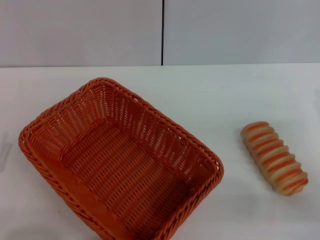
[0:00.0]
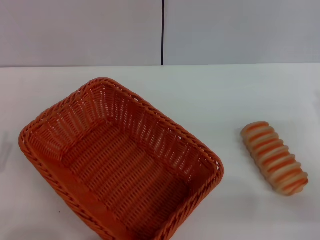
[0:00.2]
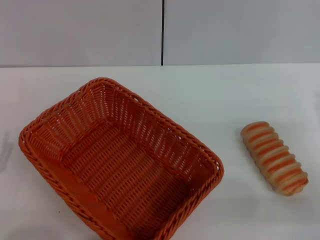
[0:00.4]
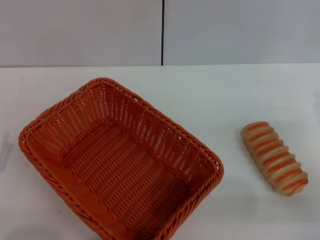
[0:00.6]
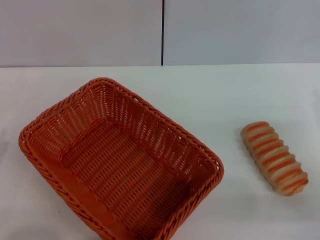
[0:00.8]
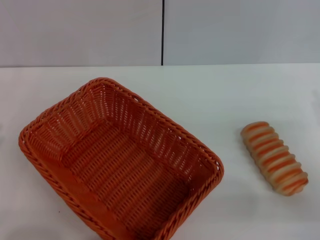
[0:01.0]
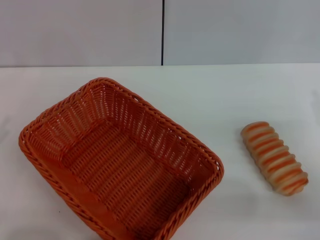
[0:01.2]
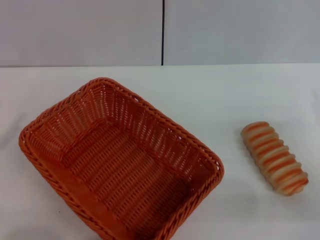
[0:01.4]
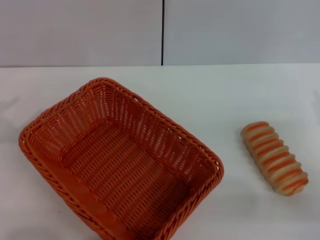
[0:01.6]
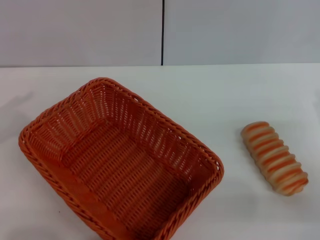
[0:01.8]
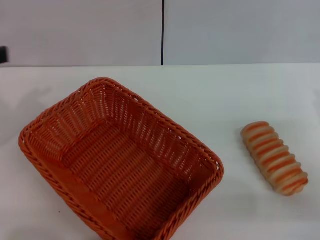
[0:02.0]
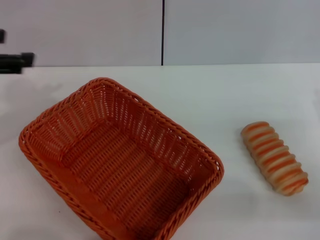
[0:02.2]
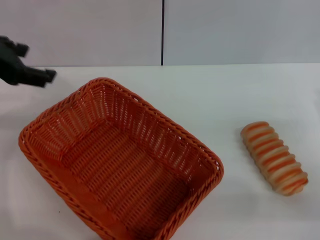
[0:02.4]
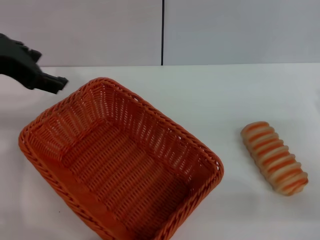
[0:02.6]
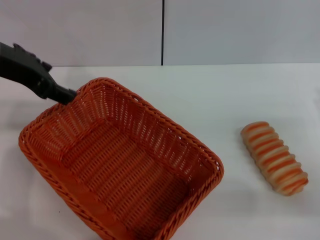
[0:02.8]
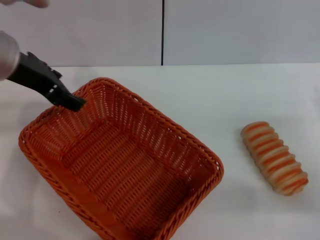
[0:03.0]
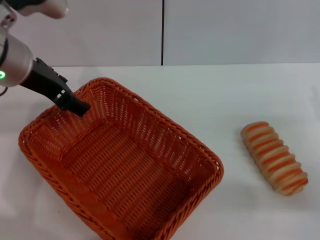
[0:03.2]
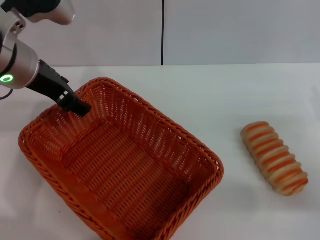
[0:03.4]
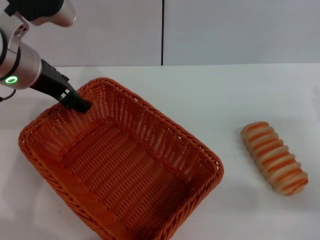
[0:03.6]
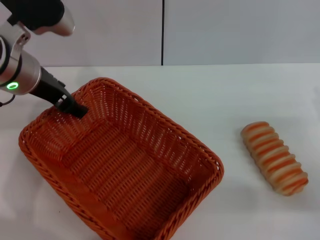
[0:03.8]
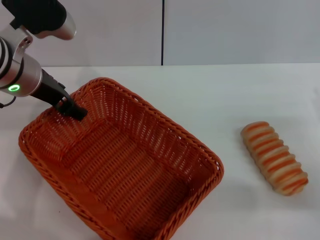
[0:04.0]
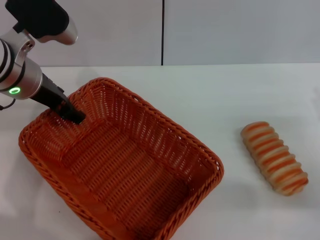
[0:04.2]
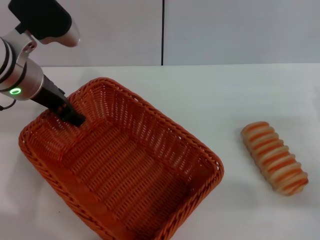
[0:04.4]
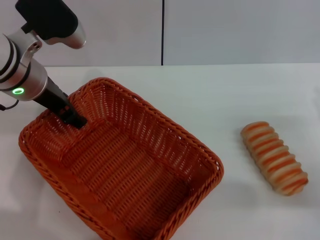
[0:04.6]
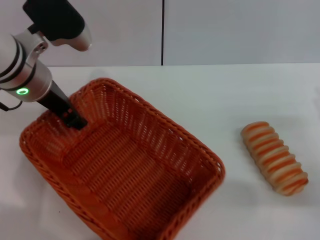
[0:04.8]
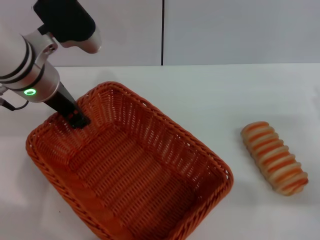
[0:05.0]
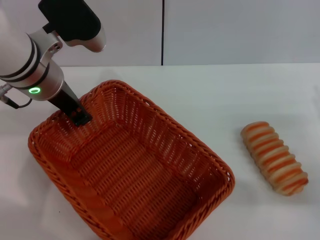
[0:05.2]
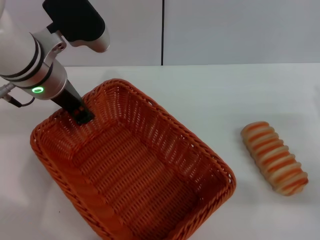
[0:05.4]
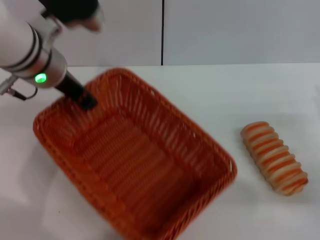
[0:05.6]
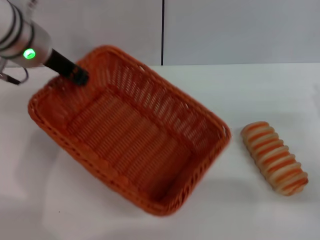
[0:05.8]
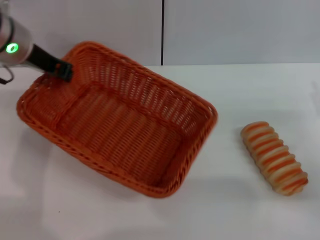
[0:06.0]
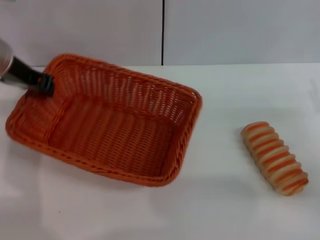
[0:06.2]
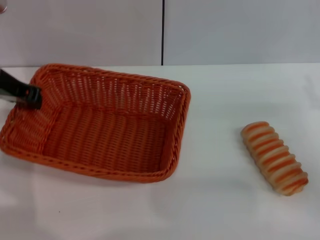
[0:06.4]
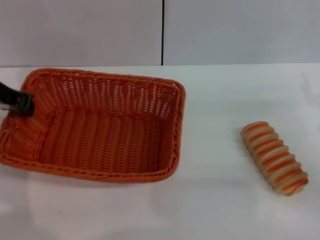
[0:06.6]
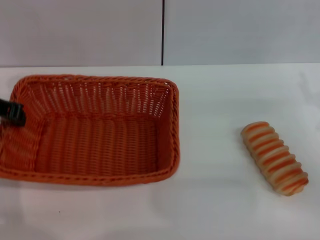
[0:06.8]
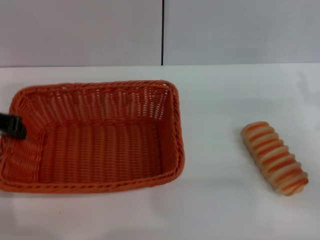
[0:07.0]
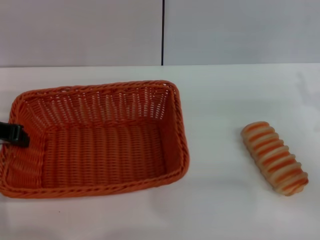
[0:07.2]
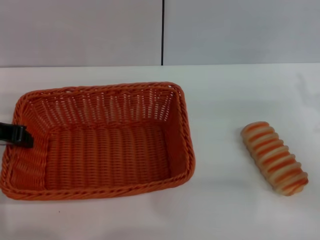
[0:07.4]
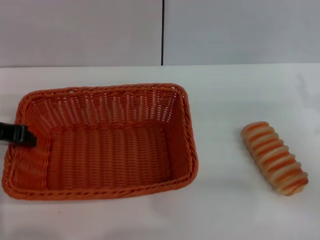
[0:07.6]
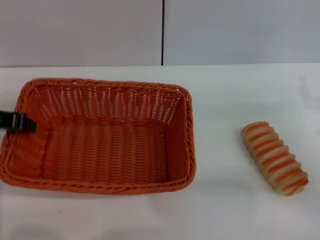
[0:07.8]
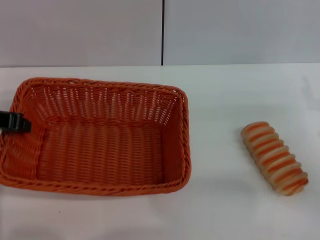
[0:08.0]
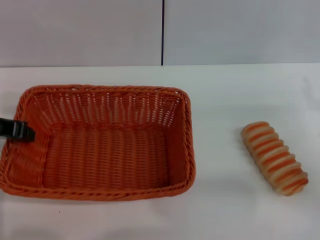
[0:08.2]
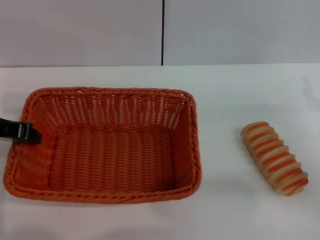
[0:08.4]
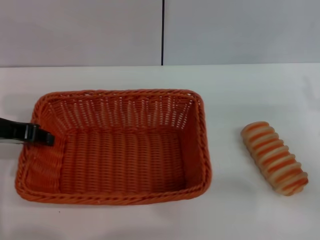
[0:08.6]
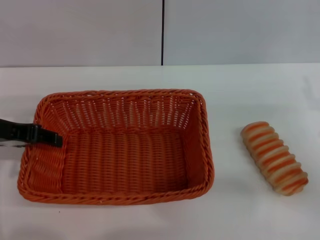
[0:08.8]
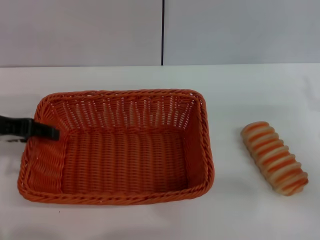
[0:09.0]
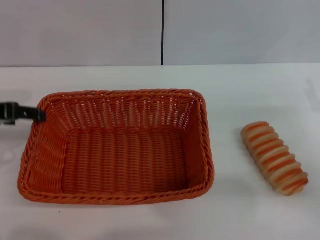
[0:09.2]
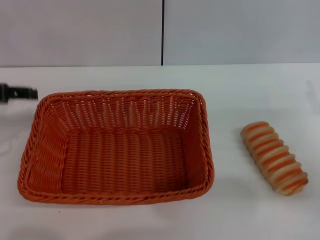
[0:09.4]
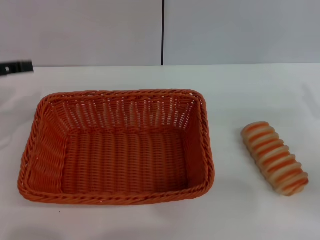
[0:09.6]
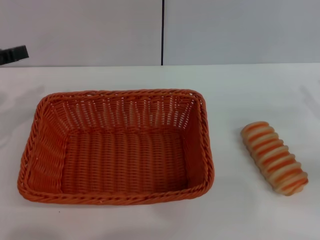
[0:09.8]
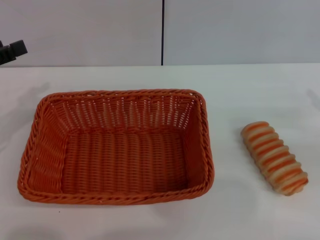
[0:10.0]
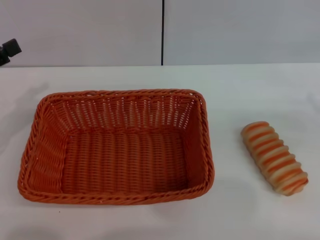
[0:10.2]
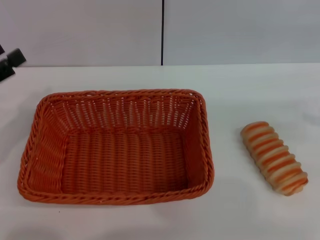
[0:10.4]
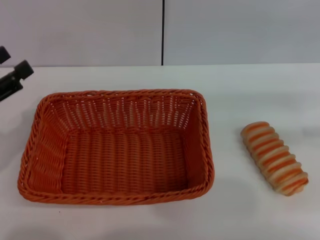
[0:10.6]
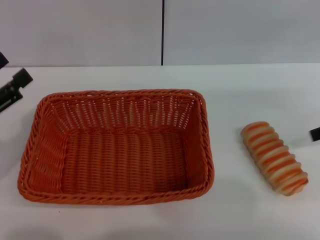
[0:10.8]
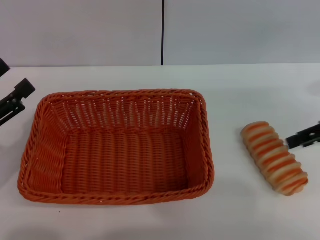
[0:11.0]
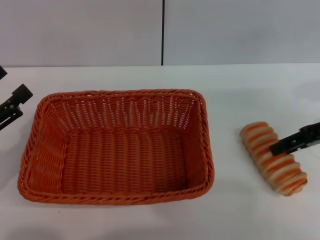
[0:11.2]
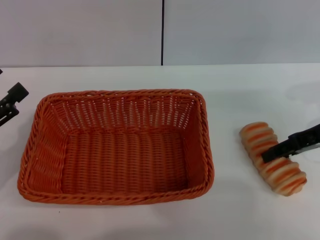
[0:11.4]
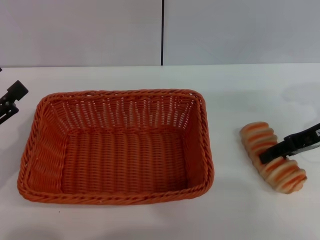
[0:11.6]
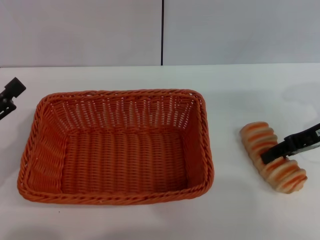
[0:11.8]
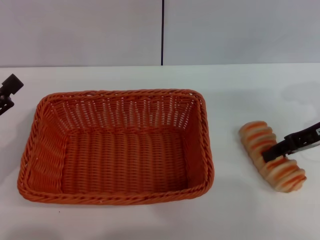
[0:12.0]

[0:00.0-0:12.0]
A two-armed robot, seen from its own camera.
Step, 0:00.0 to 0:06.0: Pick up the light basket with the left gripper.
Step, 0:06.2 to 0:09.0: Place the light basket in the center of view with the left gripper.
0:01.6 to 0:03.0: The left gripper moves to the right and forward, approximately 25 cm.
0:03.0 to 0:04.4: The left gripper is displaced downward by about 5 cm.
0:04.4 to 0:06.0: The left gripper closes up.
0:06.0 to 0:07.6: The left gripper is displaced backward and to the left by roughly 10 cm.
0:07.6 to 0:09.0: The left gripper opens up.
0:09.0 to 0:10.4: The left gripper heads to the left, covering about 5 cm, and opens up.
0:10.4 to 0:12.0: The left gripper changes place by some 5 cm. The right gripper travels to the left, downward and forward by about 15 cm, and closes up.

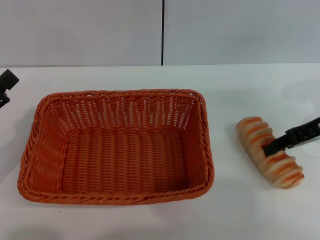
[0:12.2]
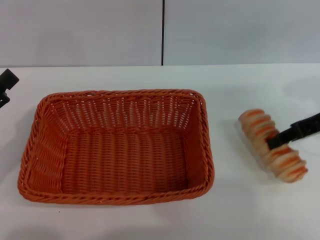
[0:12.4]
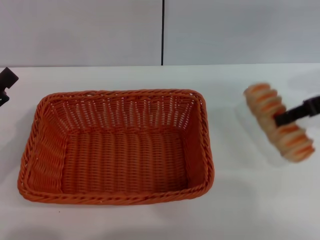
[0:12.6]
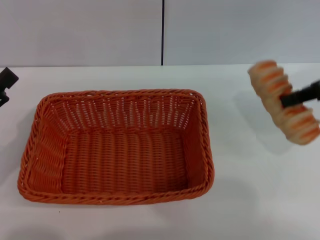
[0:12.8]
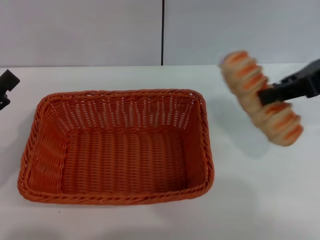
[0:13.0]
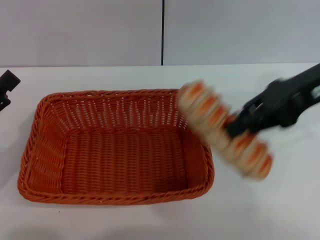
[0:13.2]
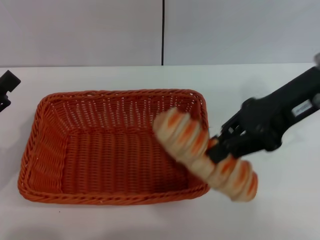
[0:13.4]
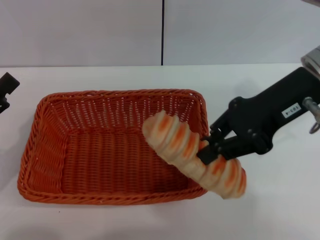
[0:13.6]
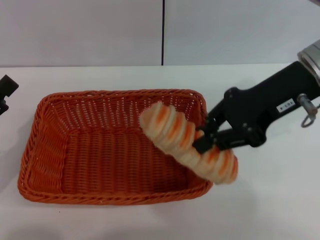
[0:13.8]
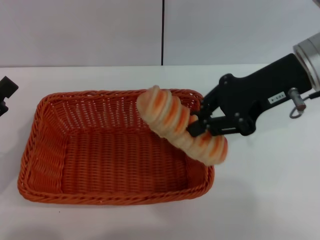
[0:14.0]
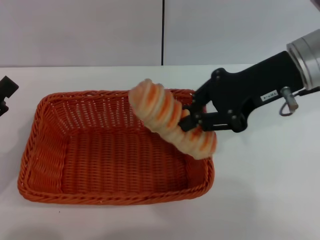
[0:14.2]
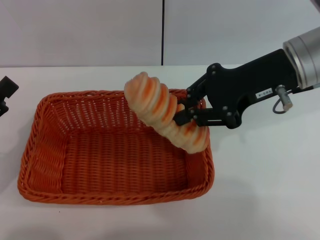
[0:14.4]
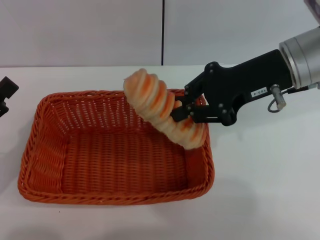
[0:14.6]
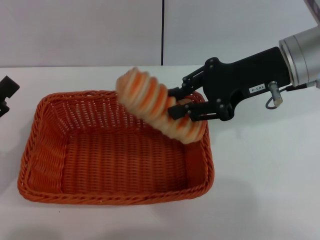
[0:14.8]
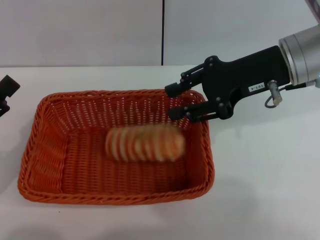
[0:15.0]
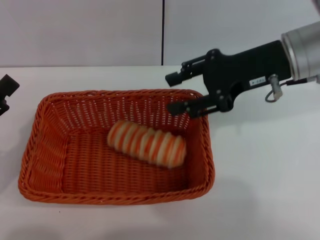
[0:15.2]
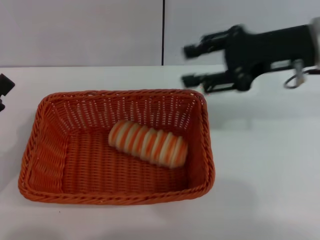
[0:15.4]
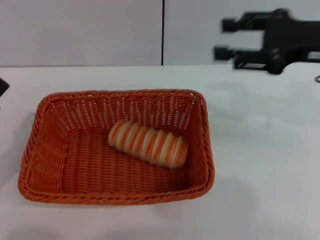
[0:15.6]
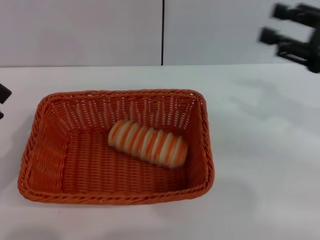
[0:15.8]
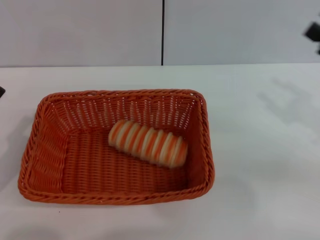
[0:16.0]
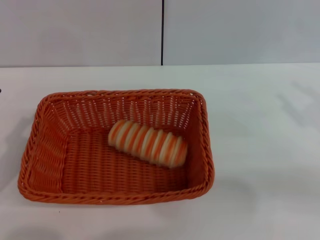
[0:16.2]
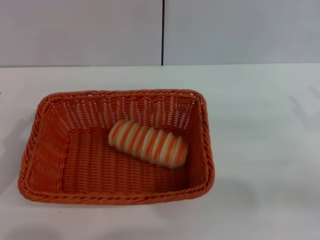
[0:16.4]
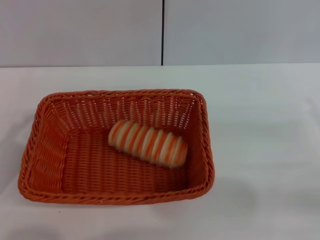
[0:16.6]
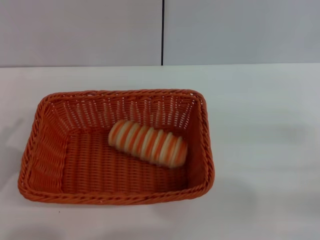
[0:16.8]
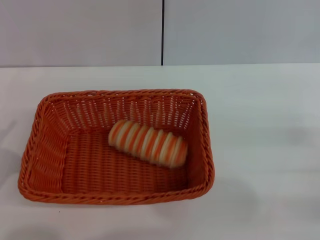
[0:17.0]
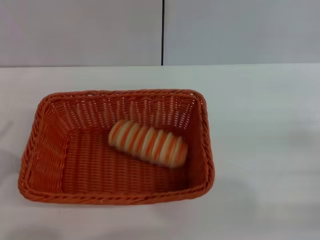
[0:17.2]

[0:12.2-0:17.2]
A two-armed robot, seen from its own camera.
Step, 0:12.8 to 0:14.8: Place the long bread into the light basket with the right gripper.
0:12.2 to 0:13.8: The right gripper shifts about 15 cm to the left and upward, and closes up.
0:13.8 to 0:15.6: The right gripper goes about 5 cm to the right, and opens.
0:15.6 to 0:17.2: The right gripper travels downward, backward and to the right by roughly 25 cm, and closes its fingers.

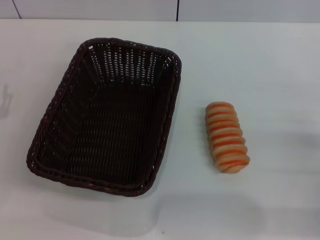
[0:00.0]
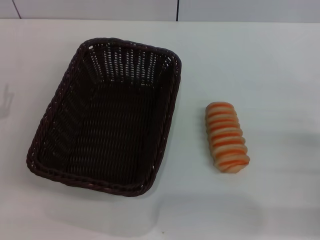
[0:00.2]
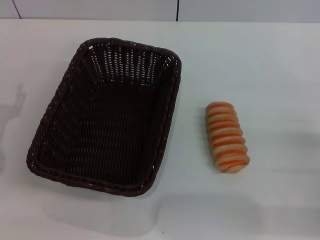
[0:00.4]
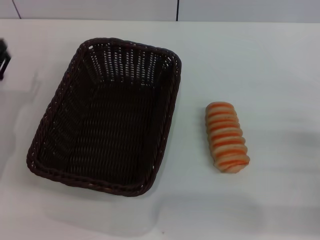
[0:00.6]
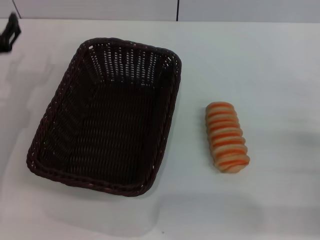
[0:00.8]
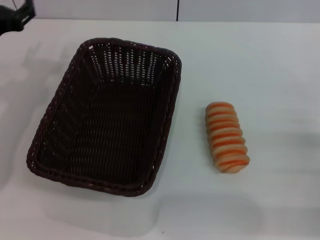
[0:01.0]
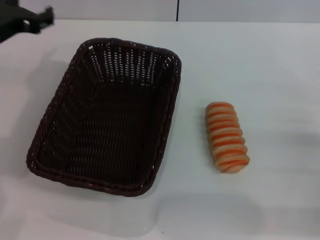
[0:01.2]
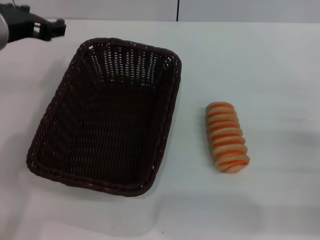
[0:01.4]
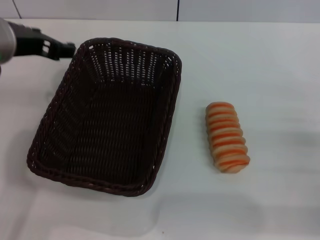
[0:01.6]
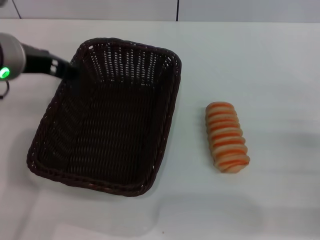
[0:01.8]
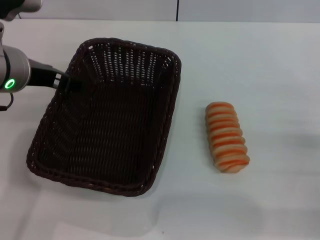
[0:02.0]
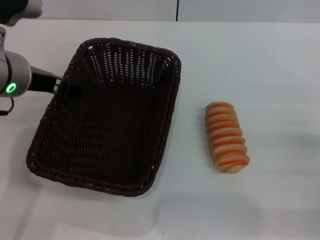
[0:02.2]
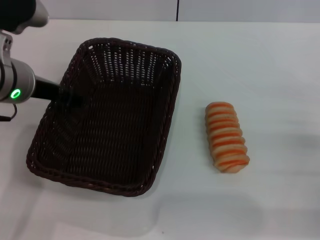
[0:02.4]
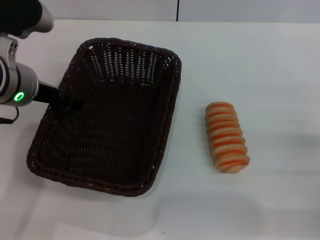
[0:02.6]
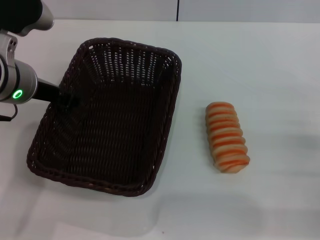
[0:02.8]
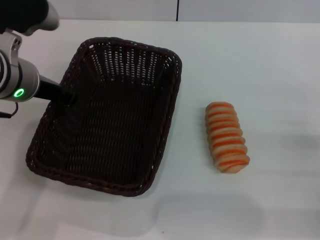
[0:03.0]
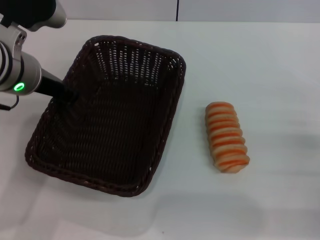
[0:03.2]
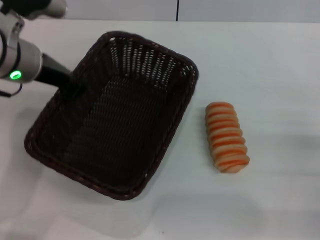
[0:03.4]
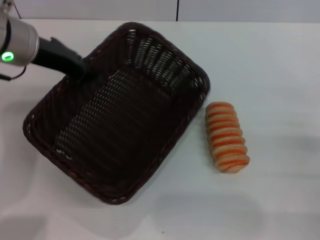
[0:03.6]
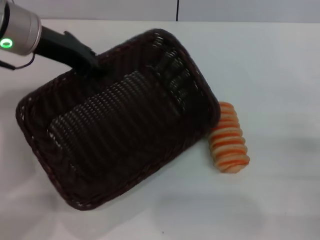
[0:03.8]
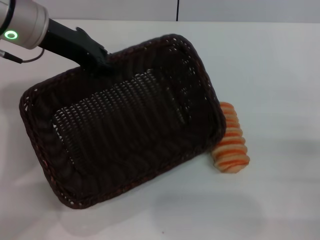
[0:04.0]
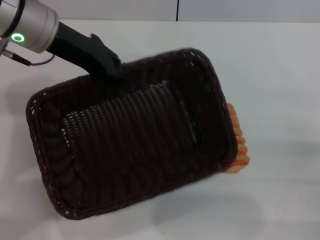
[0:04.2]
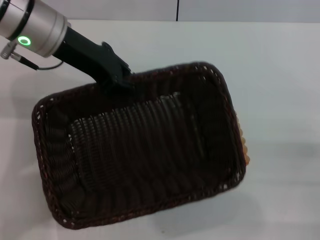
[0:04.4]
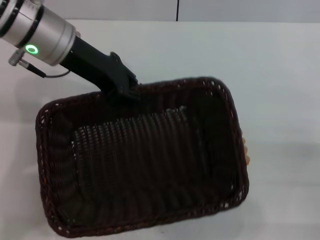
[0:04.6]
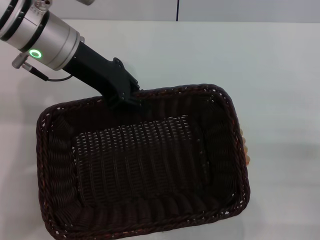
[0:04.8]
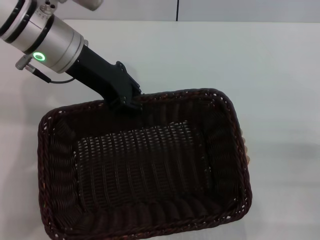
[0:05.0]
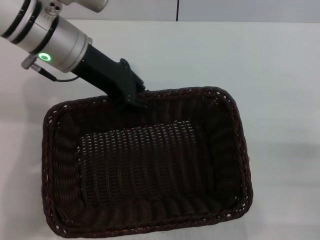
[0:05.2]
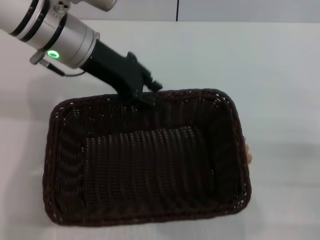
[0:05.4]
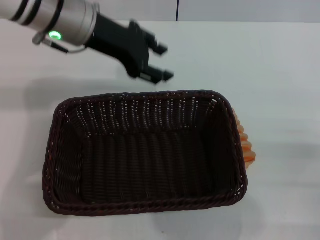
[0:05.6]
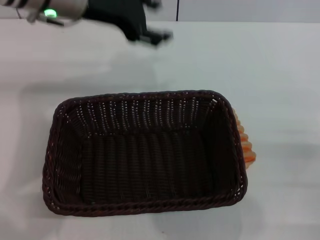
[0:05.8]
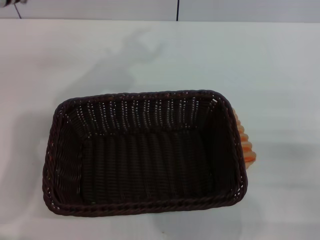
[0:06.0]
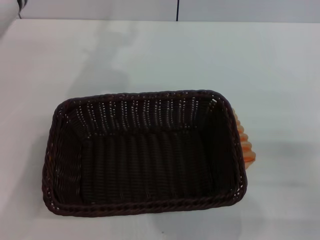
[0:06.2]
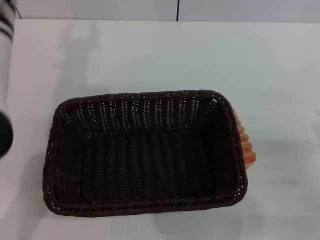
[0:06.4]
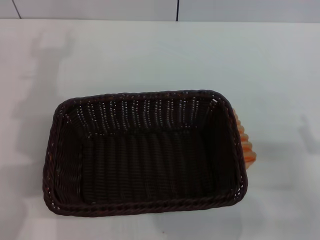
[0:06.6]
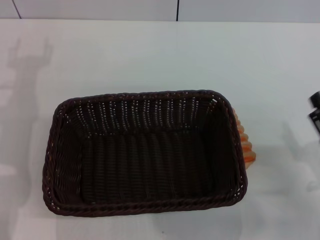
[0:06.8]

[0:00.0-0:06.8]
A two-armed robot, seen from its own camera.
Step, 0:00.0 to 0:03.4: Pick up the dark basket with the left gripper.
Step, 0:03.6 to 0:05.6: Place the dark basket in the center of view with the left gripper.
0:00.0 to 0:01.4: The left gripper is displaced upward, to the right and forward by roughly 25 cm.
0:02.8 to 0:04.0: The left gripper shifts about 5 cm forward, and closes its fingers.
0:04.0 to 0:05.4: The left gripper goes some 5 cm to the right.
0:05.4 to 0:06.8: The right gripper travels to the left by roughly 5 cm. The left gripper heads to the left and downward, covering about 15 cm, and opens up.
